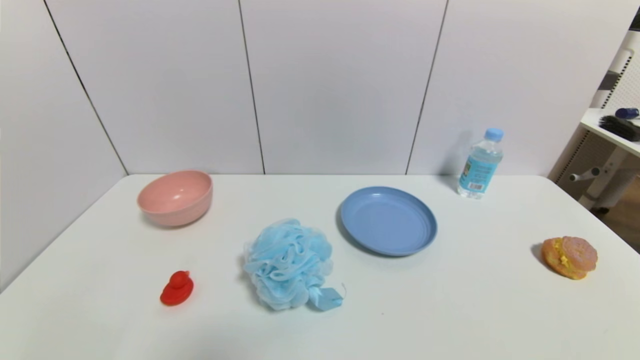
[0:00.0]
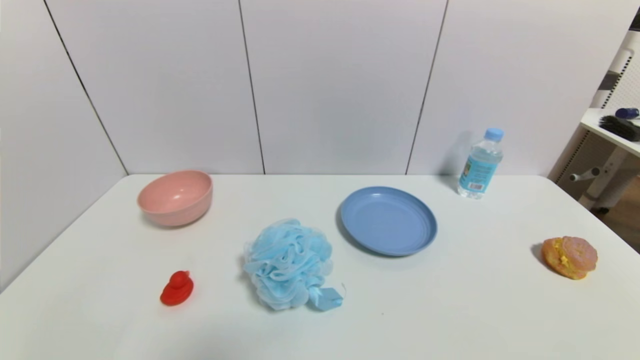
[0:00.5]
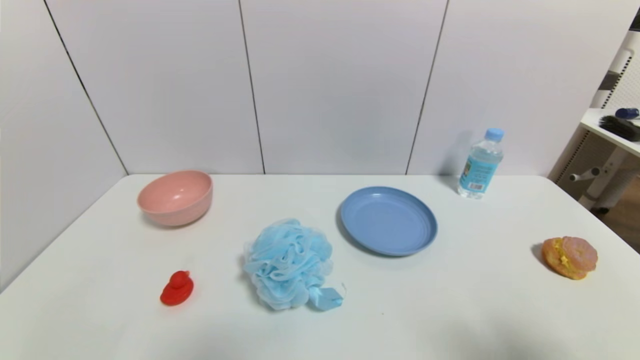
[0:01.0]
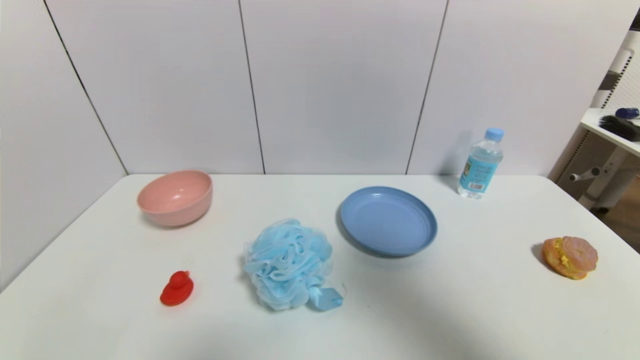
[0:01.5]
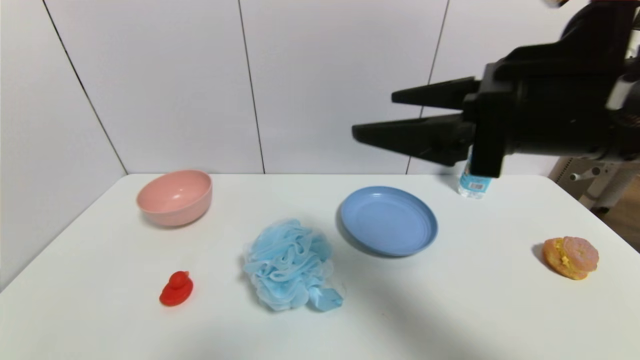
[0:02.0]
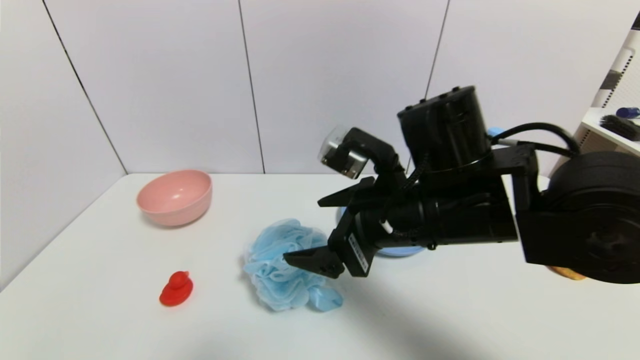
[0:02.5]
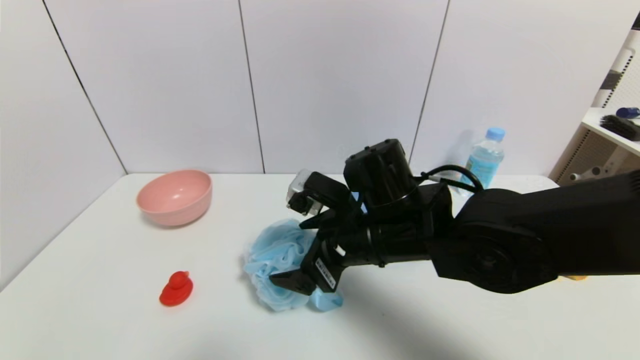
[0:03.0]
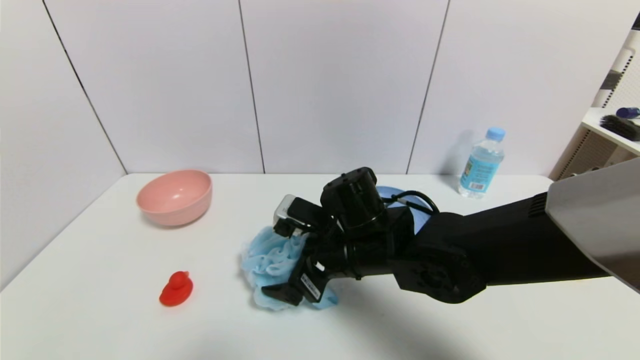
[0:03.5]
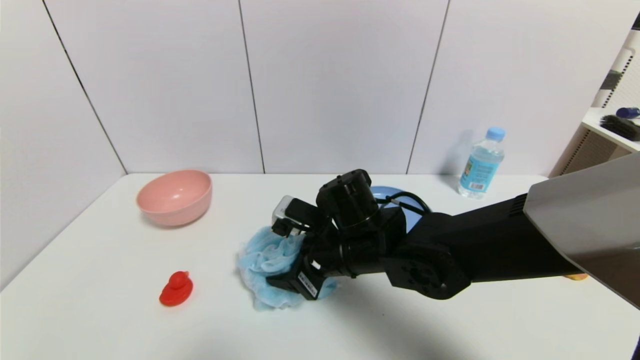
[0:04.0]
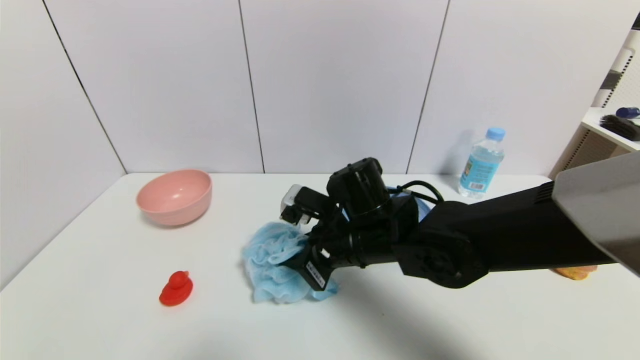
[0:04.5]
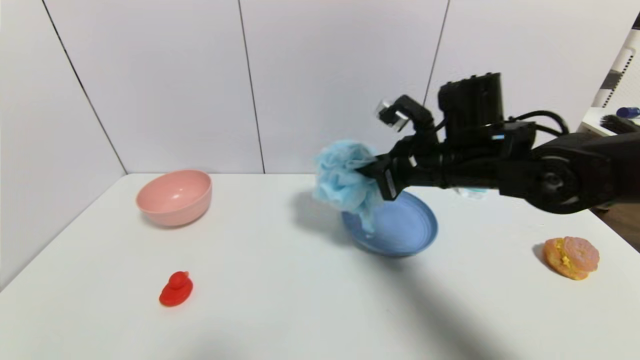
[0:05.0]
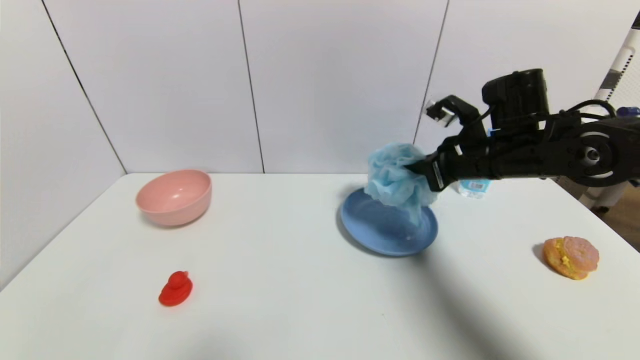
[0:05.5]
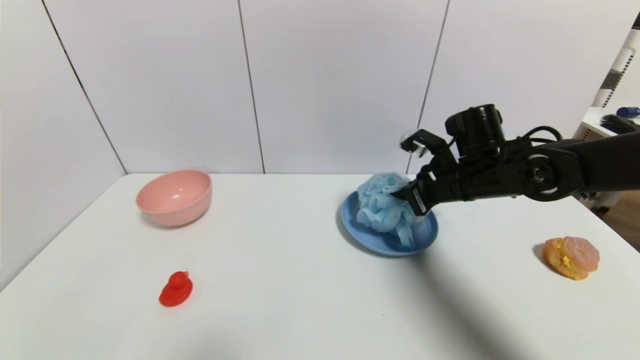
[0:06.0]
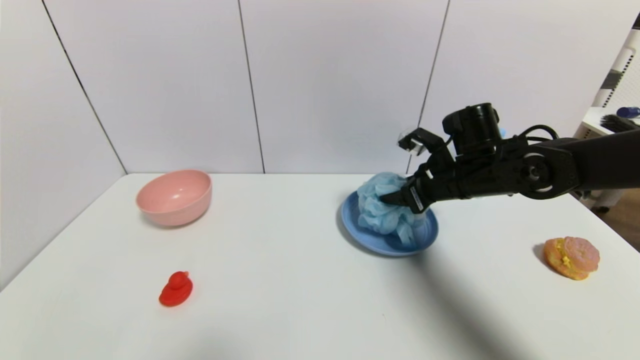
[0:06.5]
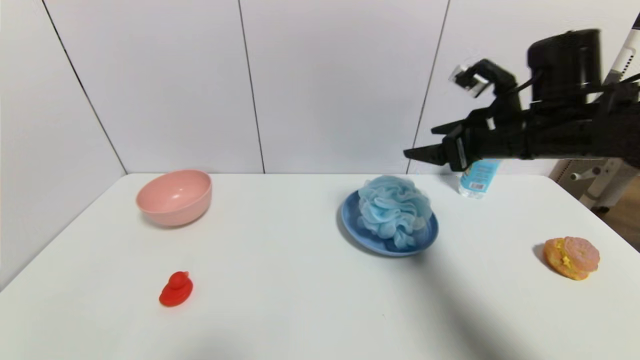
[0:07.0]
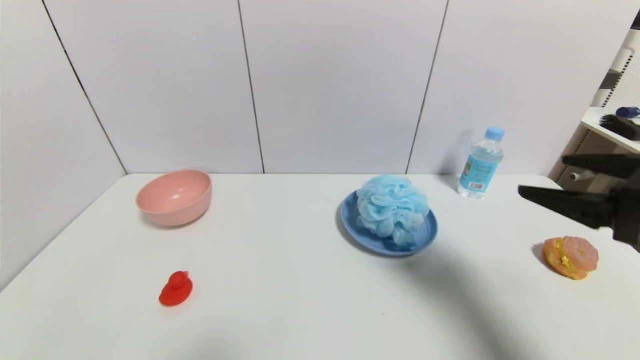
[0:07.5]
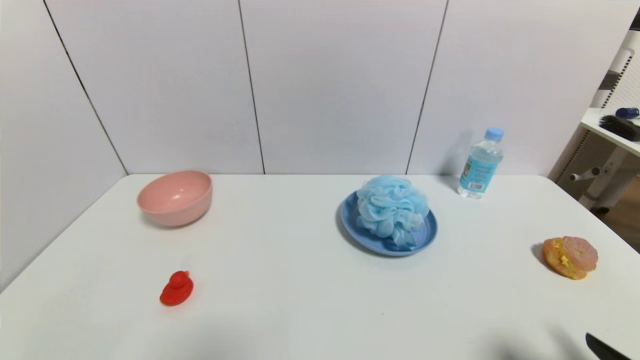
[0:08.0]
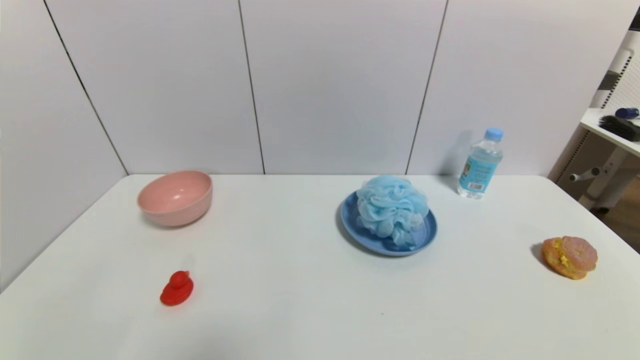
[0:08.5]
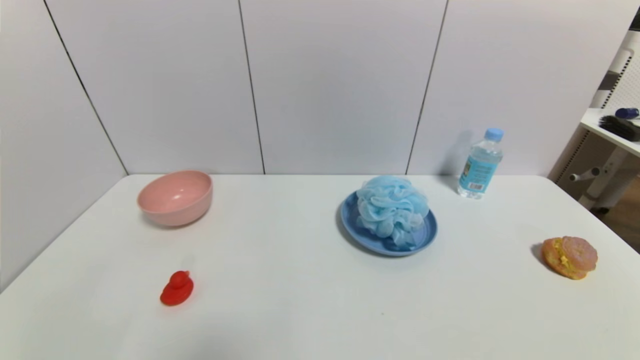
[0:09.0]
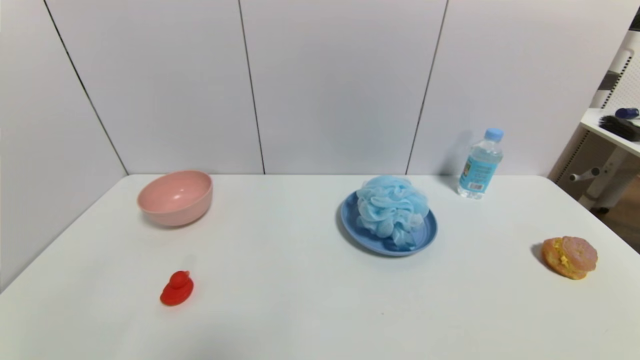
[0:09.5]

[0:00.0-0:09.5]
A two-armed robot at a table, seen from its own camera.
Task of the whole recording: use a gripper to pick the target object and place on the blue plate.
Step, 0:00.0 to 0:04.5: Grasp the shower sphere with the right gripper.
Step, 0:05.0 to 0:07.0: Place the shower sphere on the blue plate with the right gripper.
0:00.0 to 0:02.0: The right gripper travels upward, forward and to the left by some 35 cm.
0:02.0 to 0:04.0: The right gripper moves downward, to the left and forward, some 25 cm, and closes up.
0:04.0 to 0:05.5: The right gripper shifts approximately 20 cm to the right and upward, and closes its fingers.
0:05.5 to 0:07.5: The right gripper shifts some 20 cm backward and to the right, and opens up.
0:07.5 to 0:09.5: The right gripper moves downward and backward, some 25 cm.
